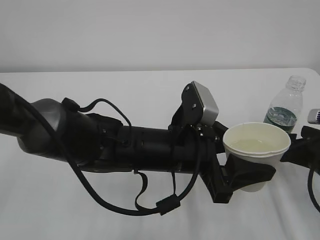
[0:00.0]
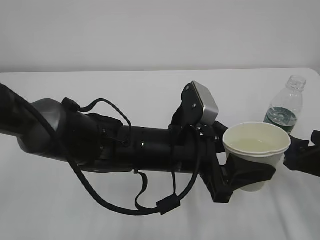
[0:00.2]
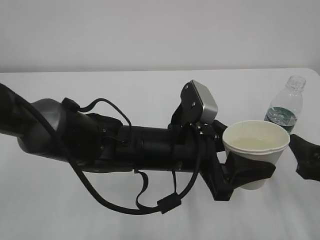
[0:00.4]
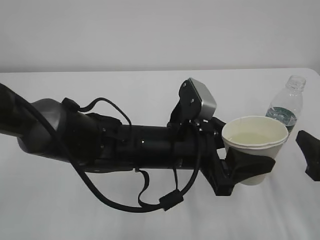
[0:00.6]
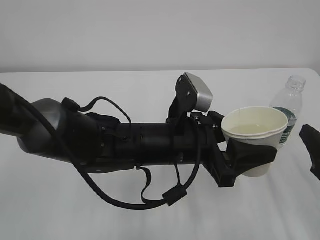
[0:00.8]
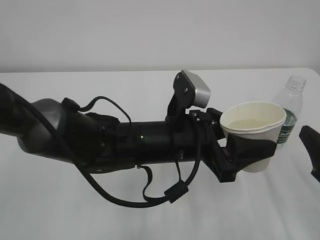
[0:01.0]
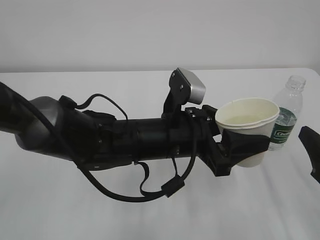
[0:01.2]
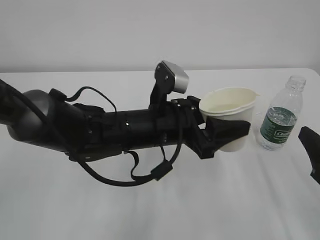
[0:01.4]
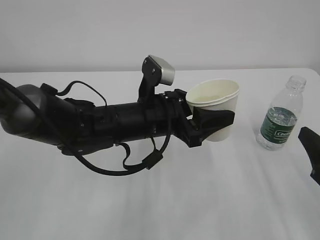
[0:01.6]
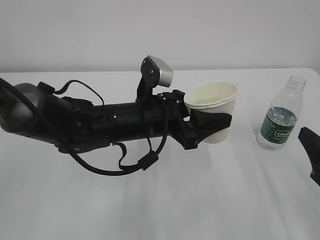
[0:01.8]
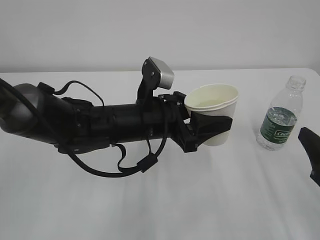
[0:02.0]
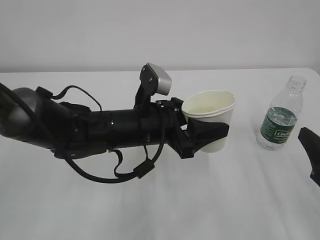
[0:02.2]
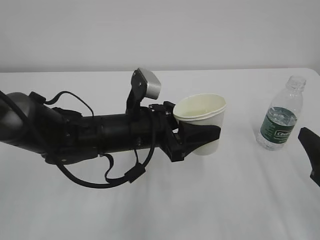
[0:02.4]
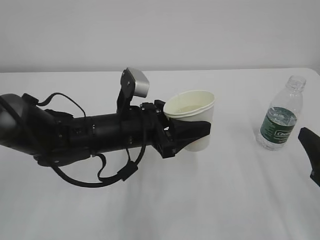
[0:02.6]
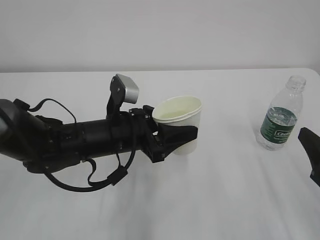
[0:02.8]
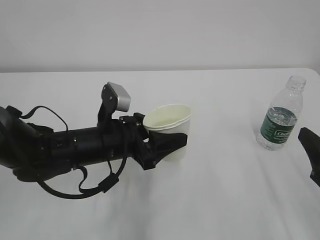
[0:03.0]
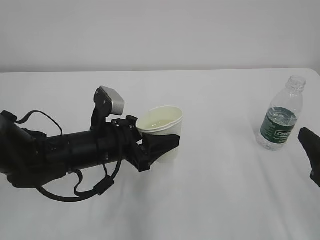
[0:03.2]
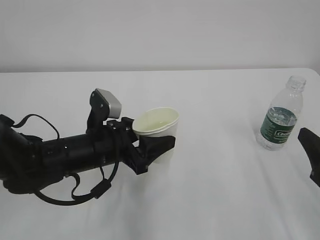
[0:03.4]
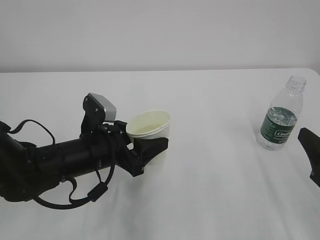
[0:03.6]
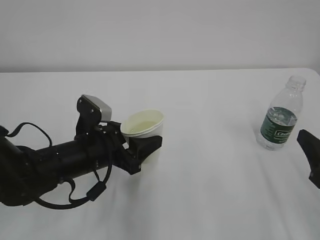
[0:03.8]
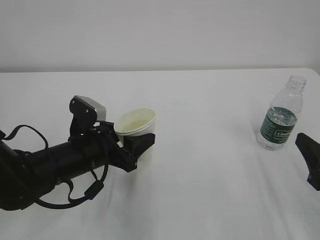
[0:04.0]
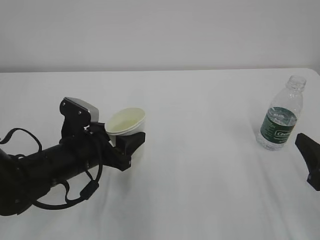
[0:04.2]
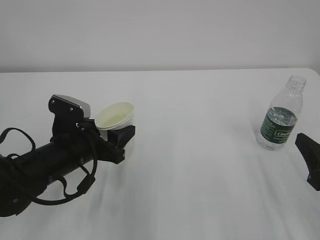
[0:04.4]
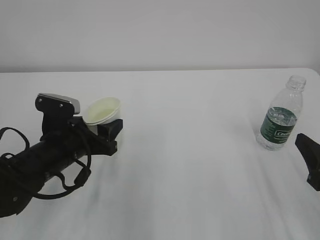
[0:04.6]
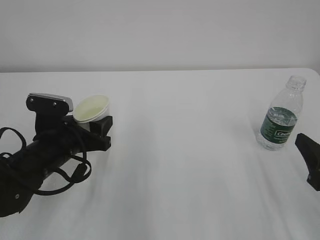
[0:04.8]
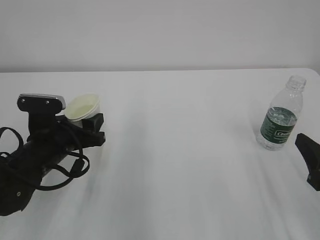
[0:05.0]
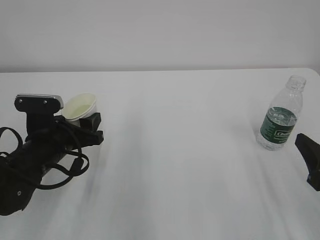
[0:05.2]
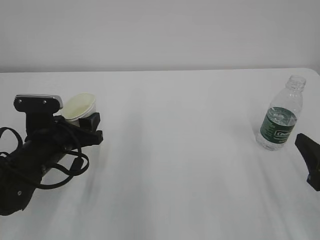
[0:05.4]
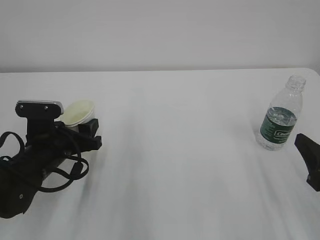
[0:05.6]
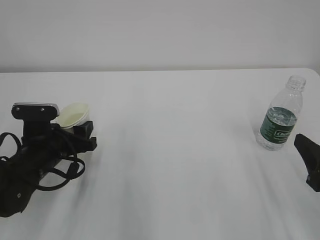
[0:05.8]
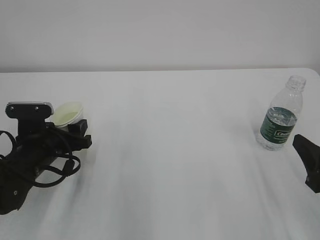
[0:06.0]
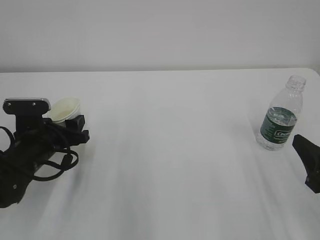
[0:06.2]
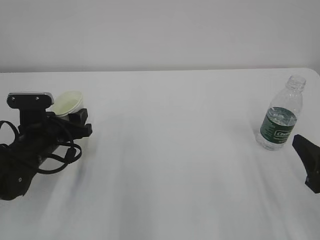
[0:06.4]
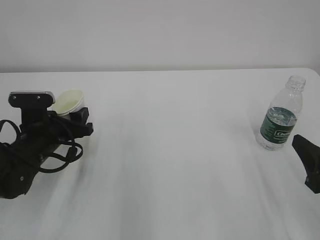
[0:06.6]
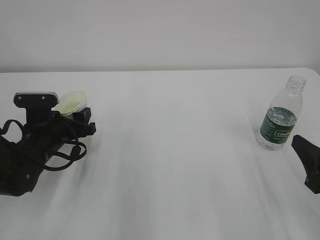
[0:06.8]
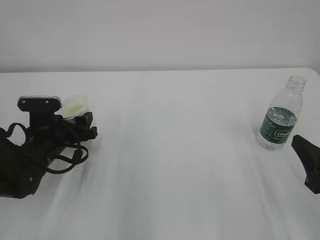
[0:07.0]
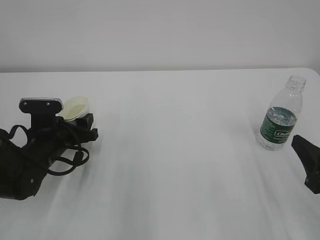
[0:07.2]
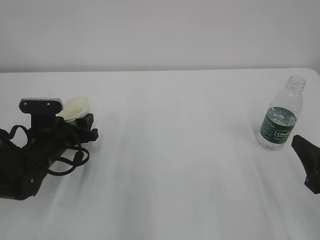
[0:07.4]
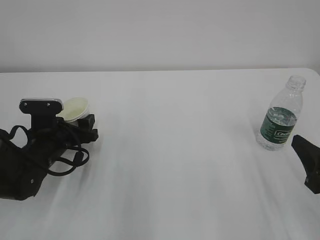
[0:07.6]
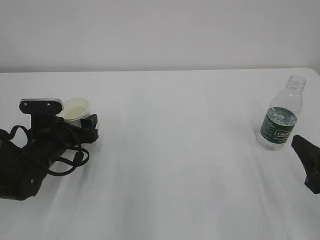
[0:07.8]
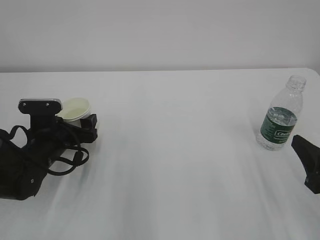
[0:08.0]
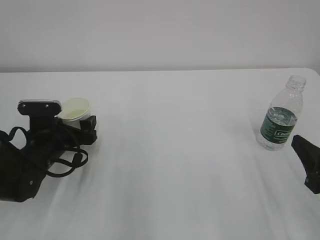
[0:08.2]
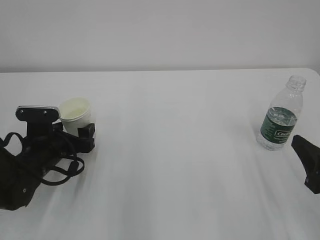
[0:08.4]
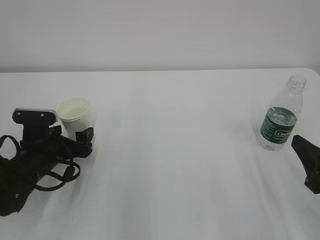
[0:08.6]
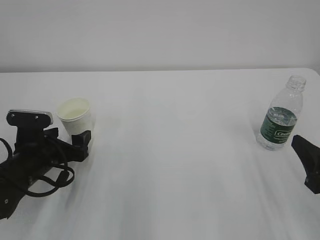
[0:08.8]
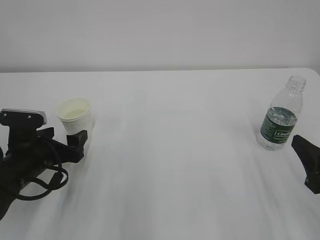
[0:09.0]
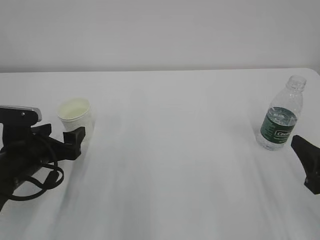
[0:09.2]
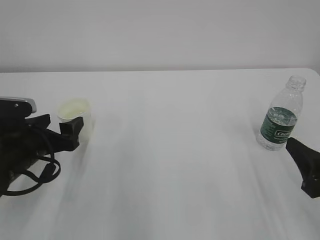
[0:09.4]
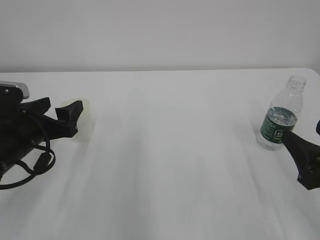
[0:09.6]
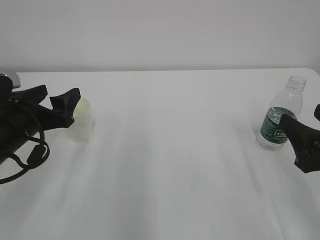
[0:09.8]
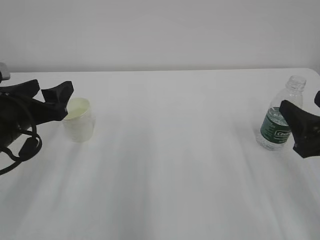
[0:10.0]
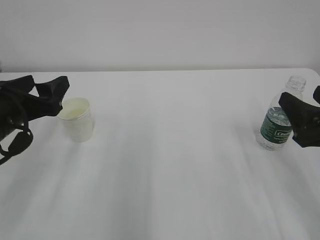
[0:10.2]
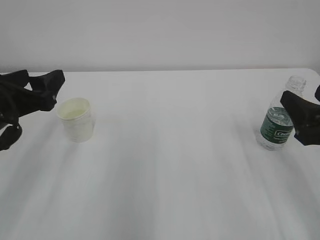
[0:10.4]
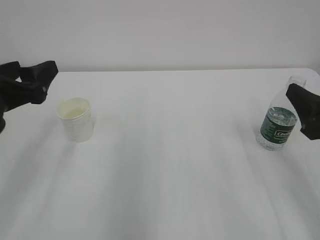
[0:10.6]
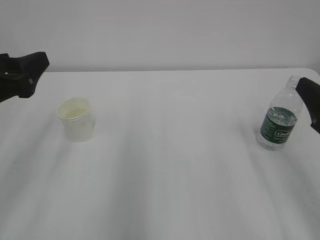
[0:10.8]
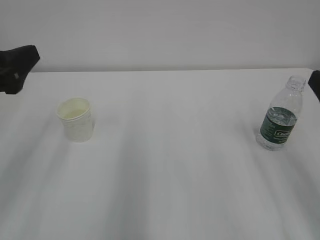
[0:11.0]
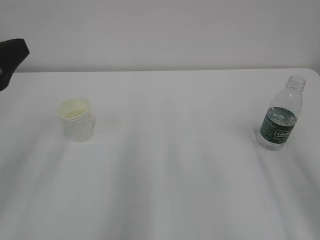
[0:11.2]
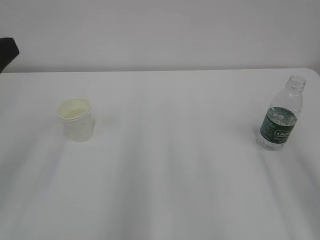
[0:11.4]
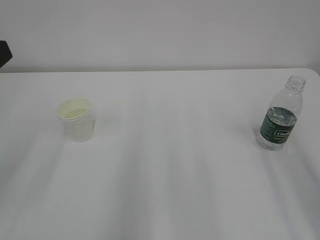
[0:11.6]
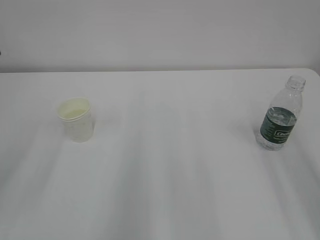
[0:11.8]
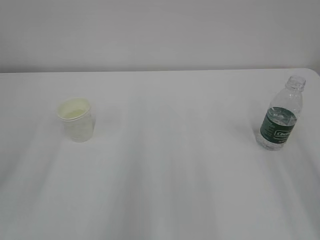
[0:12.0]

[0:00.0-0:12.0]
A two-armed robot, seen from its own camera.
0:00.0 to 0:01.6: The right gripper heads backward and upward, covering some 10 cm; the left gripper goes about 5 cm forward.
0:01.6 to 0:03.0: The left gripper is displaced to the left by roughly 5 cm.
0:03.0 to 0:04.4: The left gripper shifts about 5 cm to the left.
0:04.4 to 0:06.0: The left gripper goes about 5 cm to the left.
0:06.0 to 0:07.6: The grippers stay close to where they were, moving slightly.
0:07.6 to 0:09.0: The left gripper ends up approximately 5 cm from where it was, and opens up.
0:09.0 to 0:10.4: The right gripper ends up about 5 cm from where it was. The left gripper shifts about 15 cm upward, and closes its fingers.
0:10.4 to 0:12.0: The left gripper shifts roughly 15 cm backward and upward. The right gripper moves upward and backward, some 15 cm.

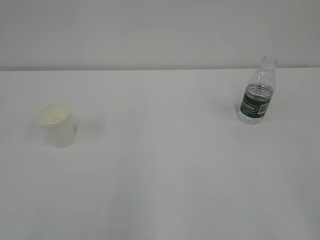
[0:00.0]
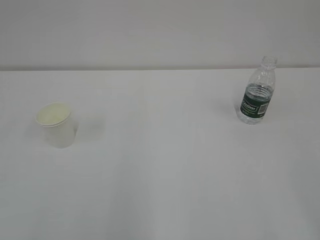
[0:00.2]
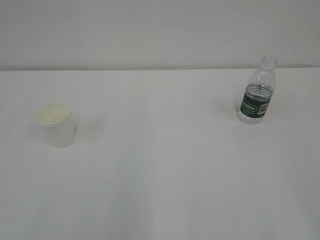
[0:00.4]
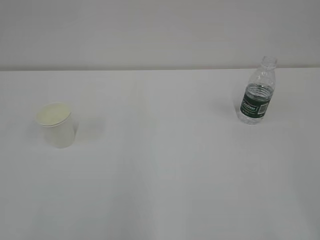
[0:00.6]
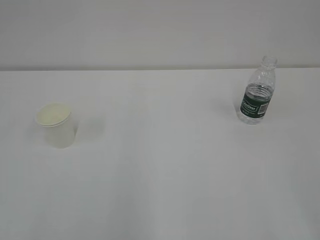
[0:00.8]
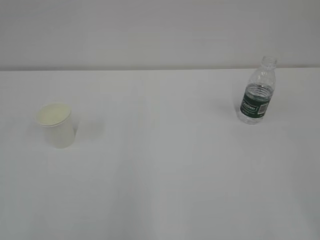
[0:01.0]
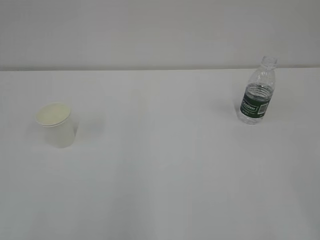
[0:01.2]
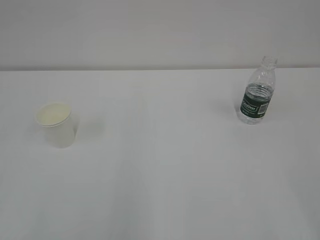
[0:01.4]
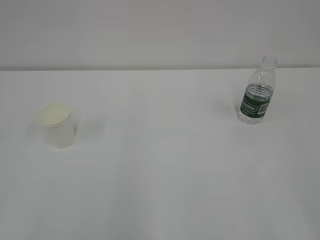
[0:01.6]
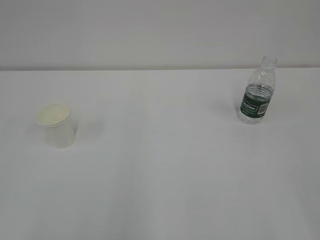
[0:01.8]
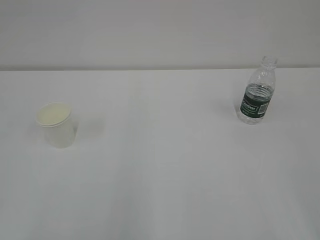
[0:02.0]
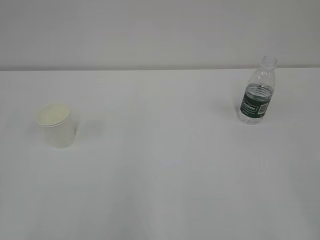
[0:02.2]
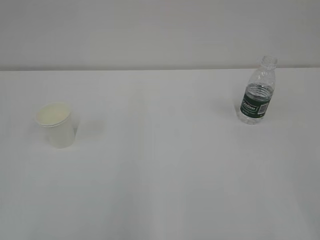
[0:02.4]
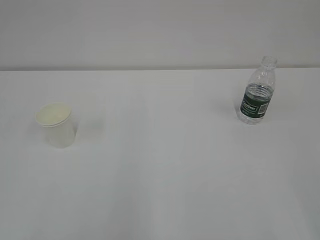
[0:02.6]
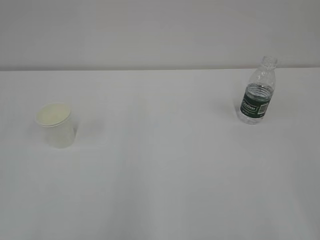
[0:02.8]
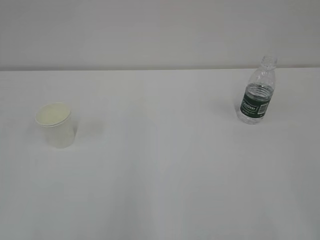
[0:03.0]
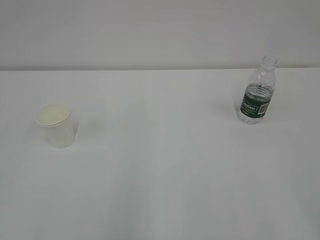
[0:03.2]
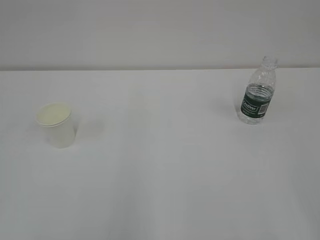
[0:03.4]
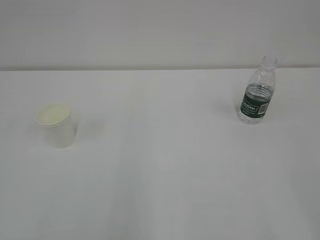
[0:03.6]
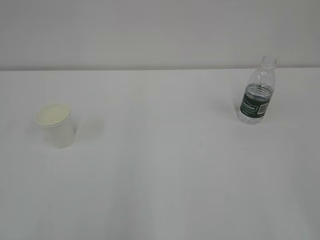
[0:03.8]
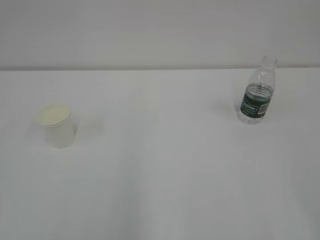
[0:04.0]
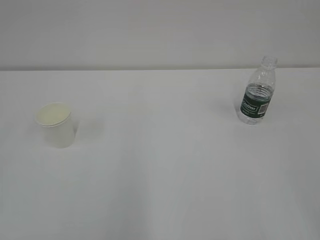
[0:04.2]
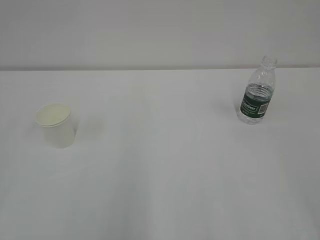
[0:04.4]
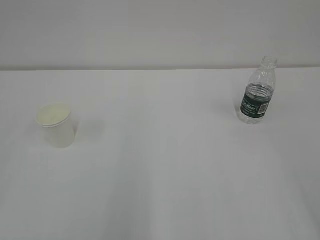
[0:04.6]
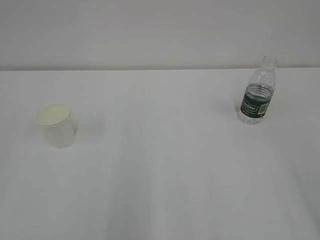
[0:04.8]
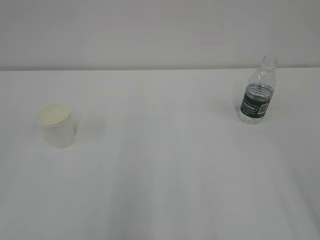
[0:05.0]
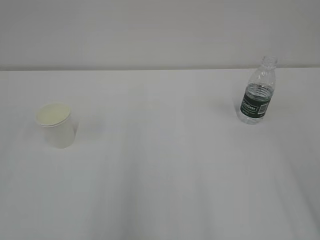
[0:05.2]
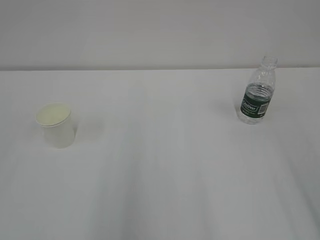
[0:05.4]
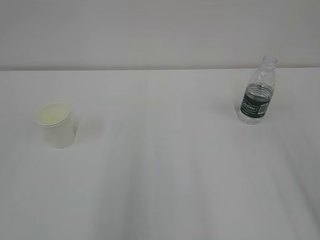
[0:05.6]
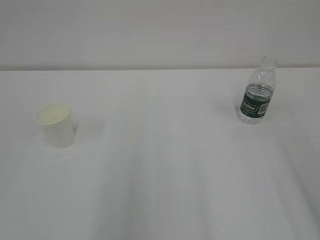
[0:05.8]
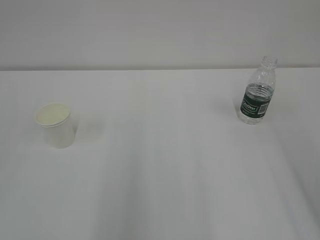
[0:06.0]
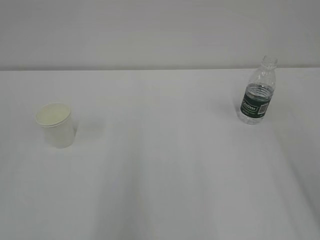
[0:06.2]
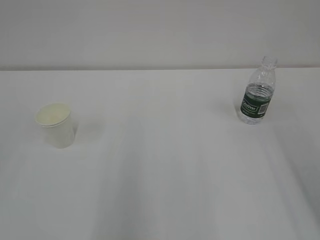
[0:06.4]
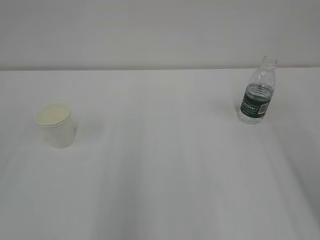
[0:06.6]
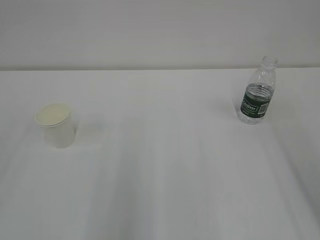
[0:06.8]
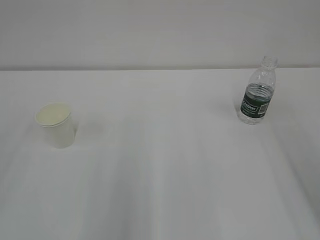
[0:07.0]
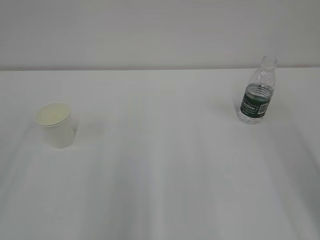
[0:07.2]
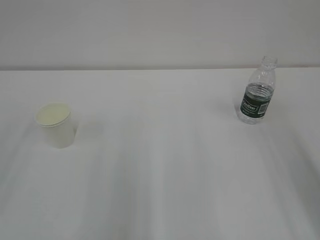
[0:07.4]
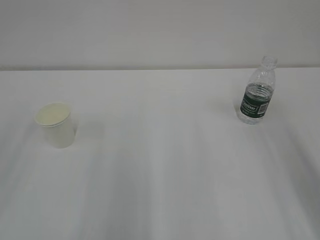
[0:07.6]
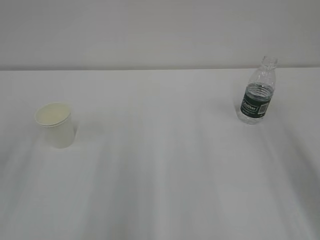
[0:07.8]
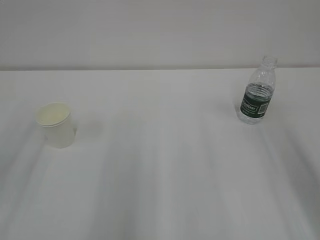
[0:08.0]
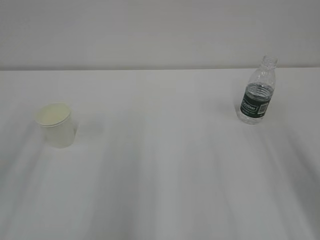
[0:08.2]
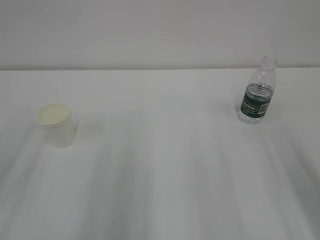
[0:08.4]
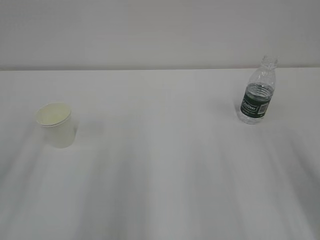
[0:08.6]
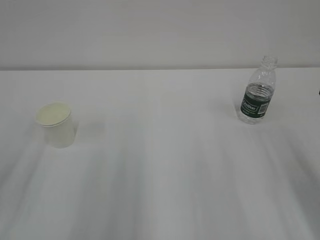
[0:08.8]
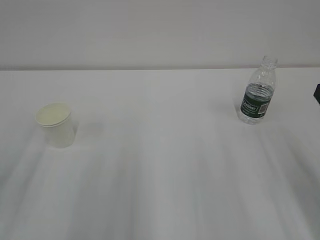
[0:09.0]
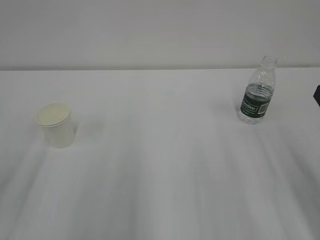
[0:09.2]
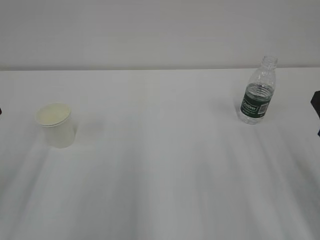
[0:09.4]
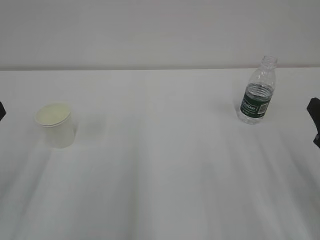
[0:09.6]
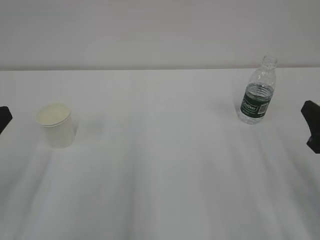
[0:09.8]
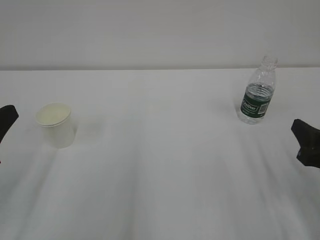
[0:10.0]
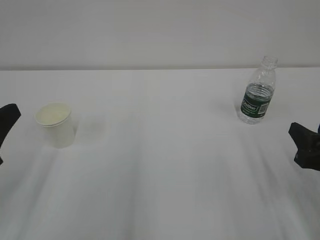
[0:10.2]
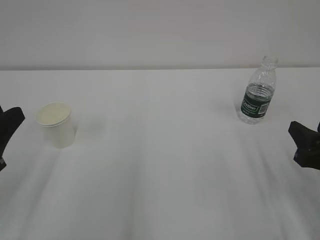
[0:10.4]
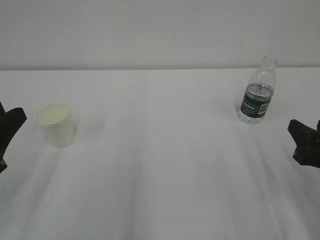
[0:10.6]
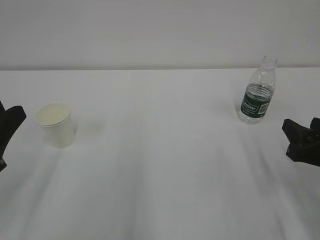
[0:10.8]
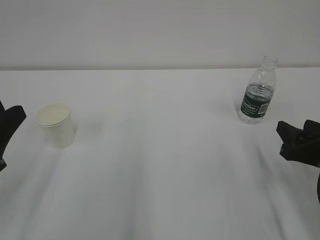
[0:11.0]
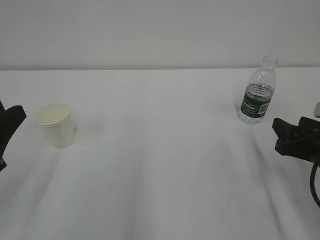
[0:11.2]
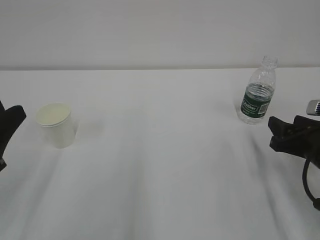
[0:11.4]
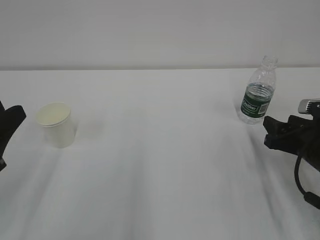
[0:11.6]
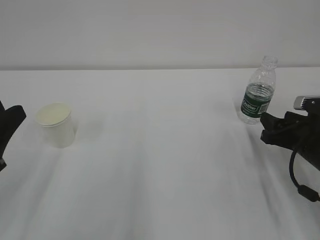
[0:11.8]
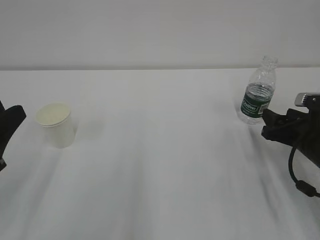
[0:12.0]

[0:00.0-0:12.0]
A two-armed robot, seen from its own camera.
0:01.6 to 0:03.0: Both grippers stay put.
0:09.0 to 0:10.4: The right gripper is displaced downward by approximately 10 cm.
0:10.4 to 0:12.0: The right gripper shifts some 10 cm forward.
